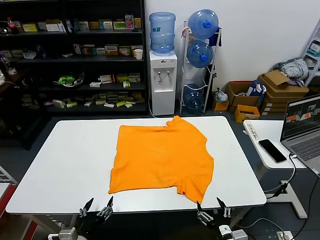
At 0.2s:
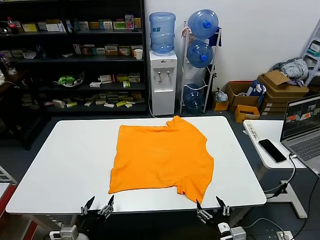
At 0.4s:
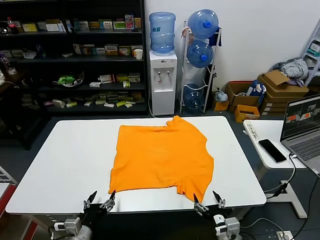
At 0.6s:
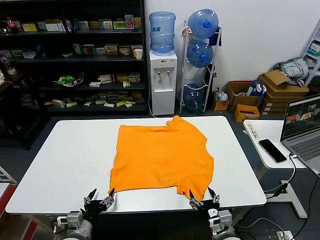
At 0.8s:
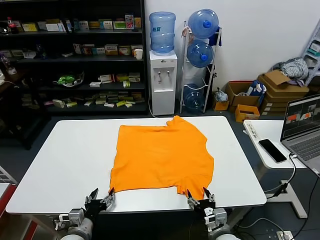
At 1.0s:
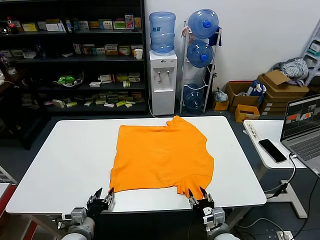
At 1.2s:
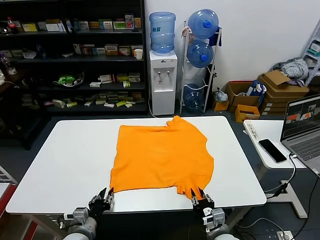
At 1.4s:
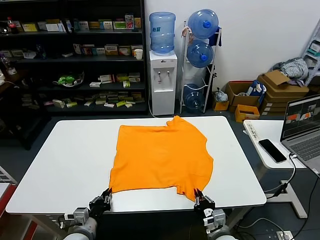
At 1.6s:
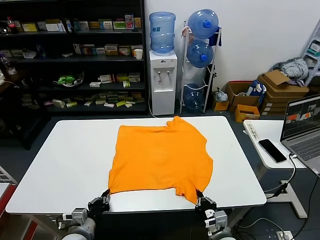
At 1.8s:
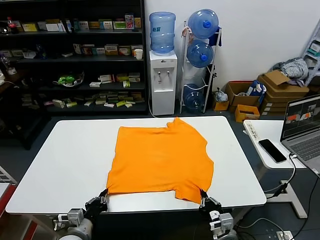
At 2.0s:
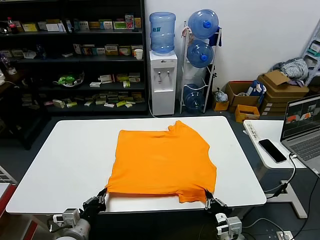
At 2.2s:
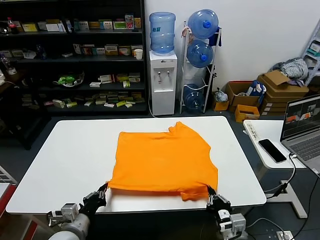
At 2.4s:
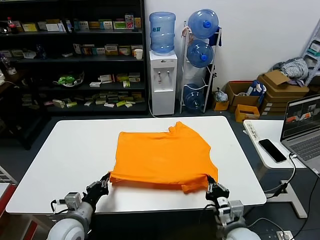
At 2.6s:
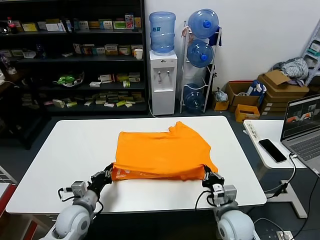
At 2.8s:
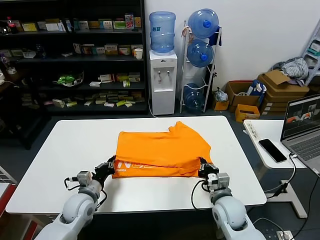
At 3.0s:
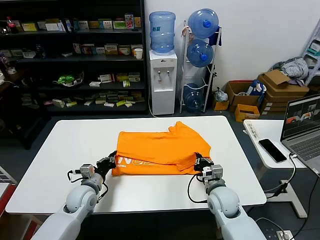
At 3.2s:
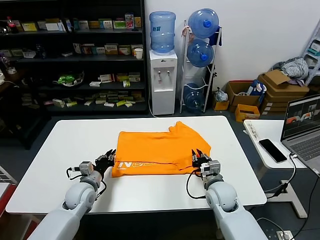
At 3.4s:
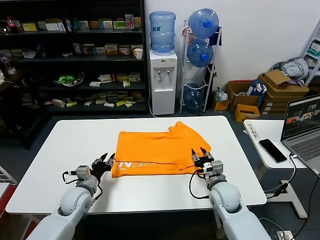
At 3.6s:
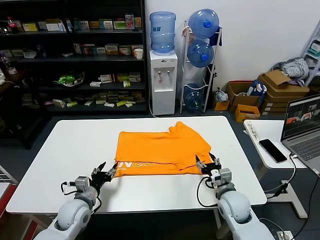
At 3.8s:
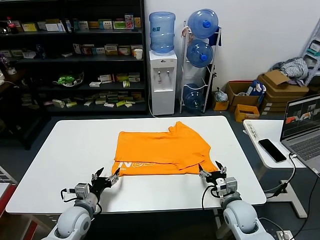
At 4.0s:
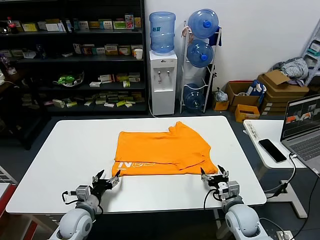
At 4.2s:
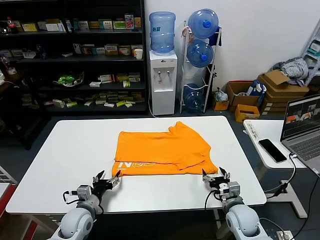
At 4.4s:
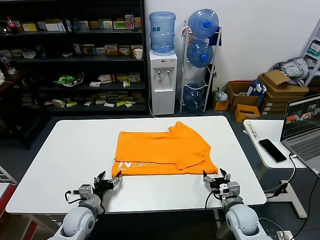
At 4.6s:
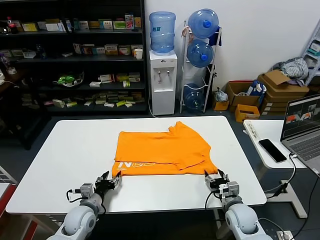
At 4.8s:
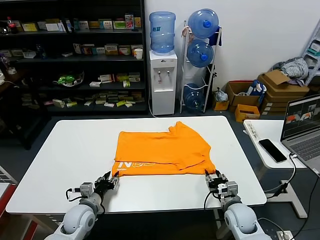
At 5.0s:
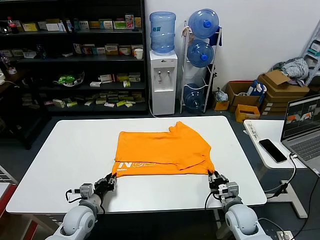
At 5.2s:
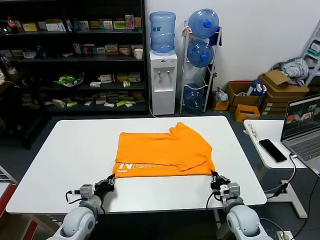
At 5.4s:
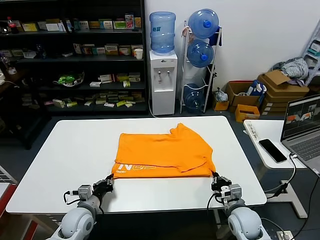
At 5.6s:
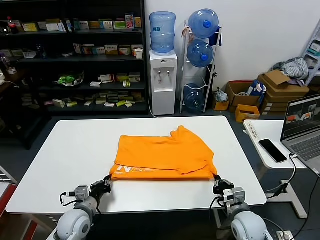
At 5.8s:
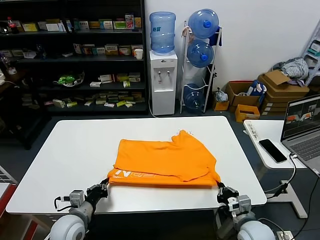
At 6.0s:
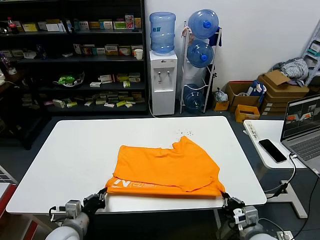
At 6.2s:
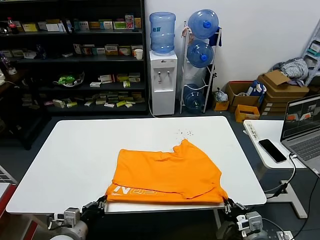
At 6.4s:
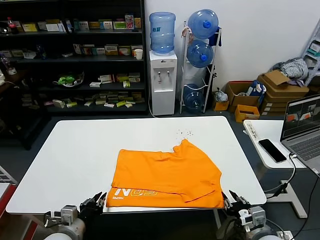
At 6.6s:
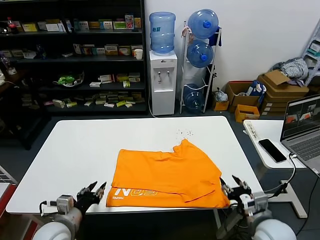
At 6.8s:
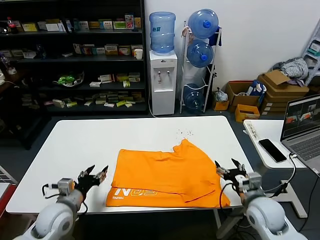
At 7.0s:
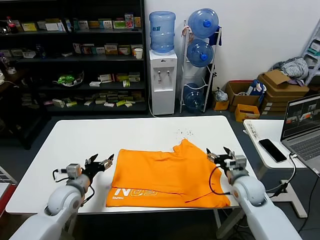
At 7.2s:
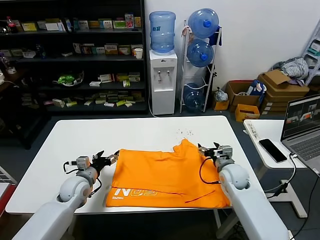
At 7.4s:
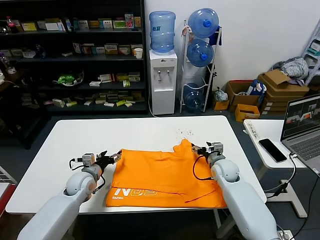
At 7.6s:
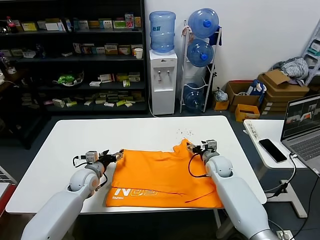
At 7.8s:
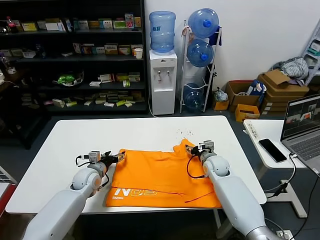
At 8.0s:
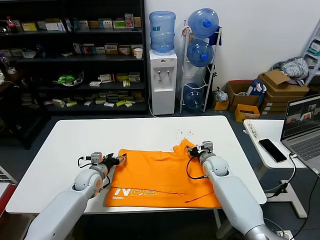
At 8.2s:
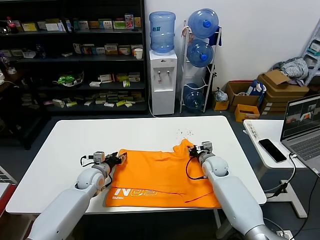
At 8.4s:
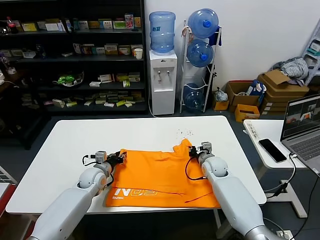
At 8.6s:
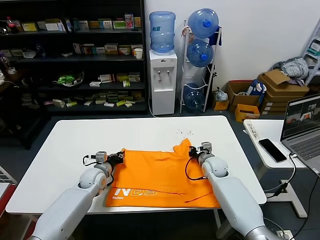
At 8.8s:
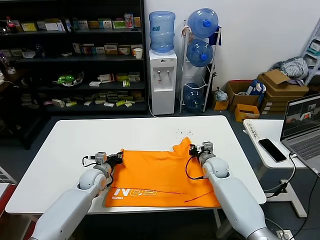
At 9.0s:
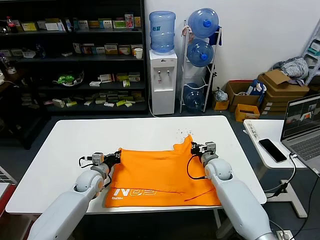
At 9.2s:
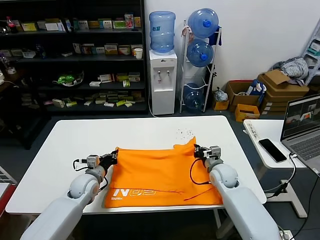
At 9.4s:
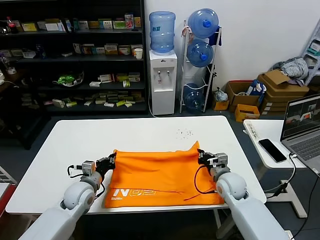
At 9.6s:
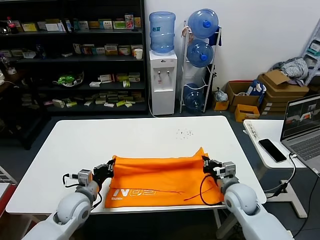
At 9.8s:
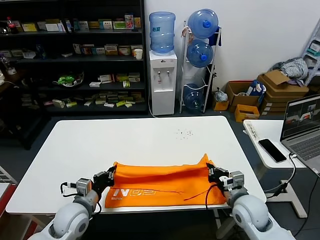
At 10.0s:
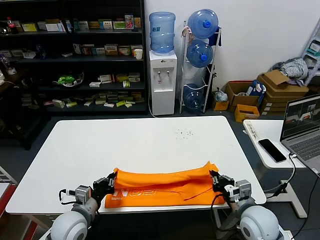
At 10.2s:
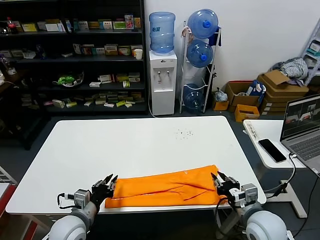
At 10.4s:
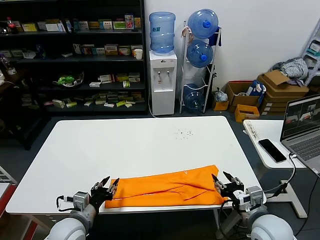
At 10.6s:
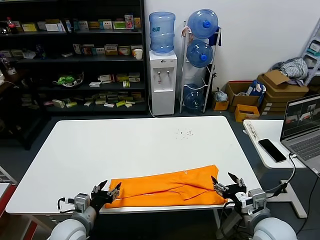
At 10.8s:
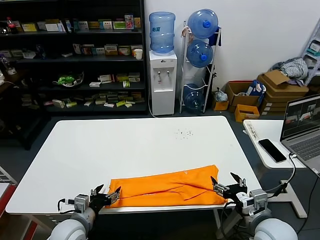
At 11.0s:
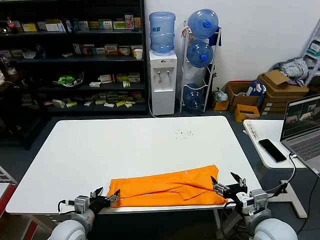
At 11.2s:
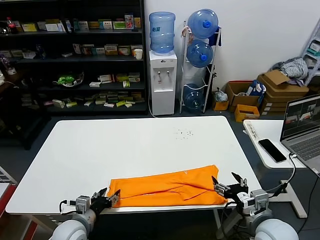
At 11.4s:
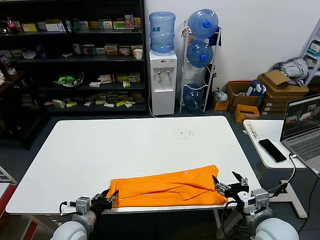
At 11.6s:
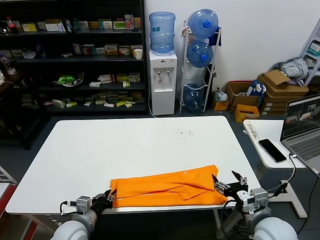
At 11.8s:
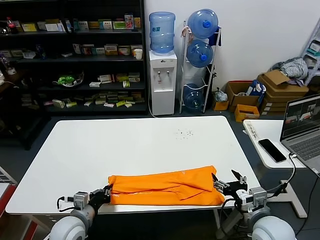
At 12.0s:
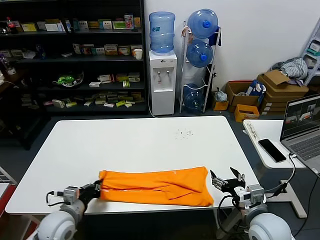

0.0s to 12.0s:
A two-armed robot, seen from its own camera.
Task of the whole recording: fold and organize the clothes.
Step, 0.0s to 1.6s: use both grippers simultaneously to clamp the lower edge of the clothing fabric.
Step, 1.8s to 3.2s: use both grippers to drag the lower edge of the fabric forward and fold it over the upper edge.
Step, 3.4s to 6.2s: Drag the clothes downward with both gripper.
Step, 6.6s to 8.6s: use both grippers simultaneously to clamp the upper edge of the clothing fabric.
Step, 8.8s to 10.2s: use both grippers to drag the upper edge of the fabric backward and fold it over the lower edge.
Step, 10.4s to 11.6s: use the left gripper to clamp the left edge of the fabric.
1.6s to 3.0s: Both grippers move forward, about 15 cm.
3.0s to 4.4s: The left gripper heads backward, covering approximately 5 cm, and opens up; the right gripper shifts approximately 10 cm to the right and downward, and opens.
4.4s to 6.0s: The two grippers go about 10 cm backward and upward. The left gripper closes. The right gripper closes.
6.0s to 7.6s: Both grippers travel together forward, about 25 cm. The right gripper opens its fingers; the left gripper opens.
7.6s to 9.0s: The right gripper closes. The left gripper closes up.
9.0s to 10.4s: The grippers both shift backward by roughly 20 cm. The right gripper opens; the left gripper opens.
10.4s to 12.0s: The right gripper opens; the left gripper closes.

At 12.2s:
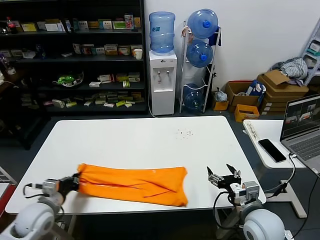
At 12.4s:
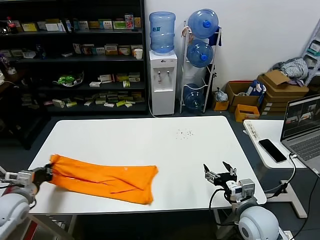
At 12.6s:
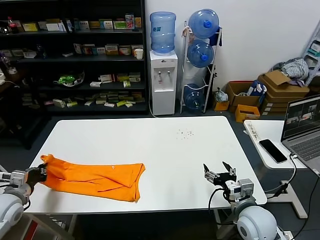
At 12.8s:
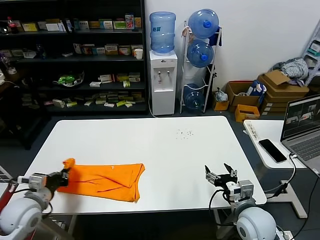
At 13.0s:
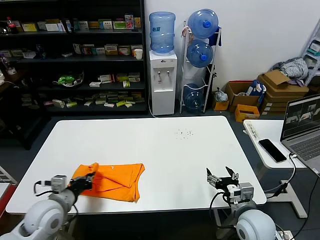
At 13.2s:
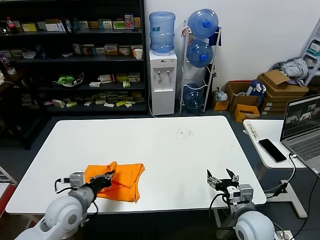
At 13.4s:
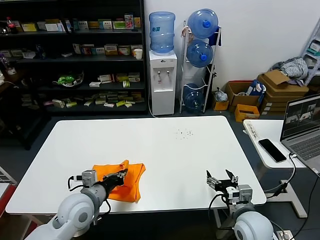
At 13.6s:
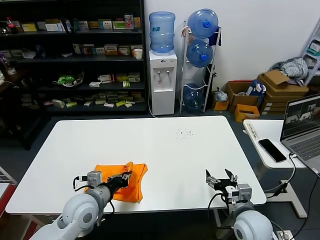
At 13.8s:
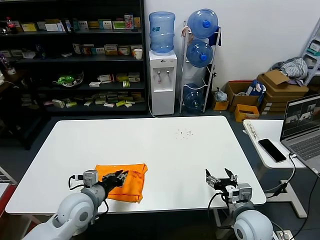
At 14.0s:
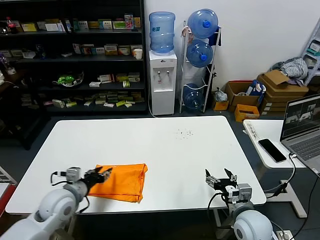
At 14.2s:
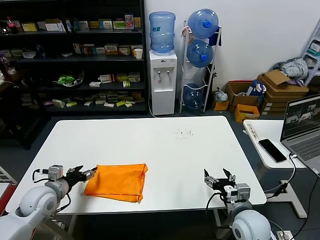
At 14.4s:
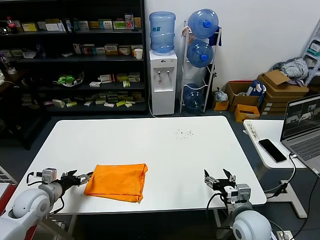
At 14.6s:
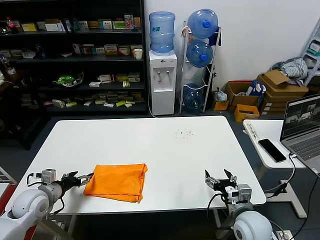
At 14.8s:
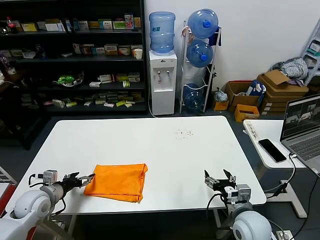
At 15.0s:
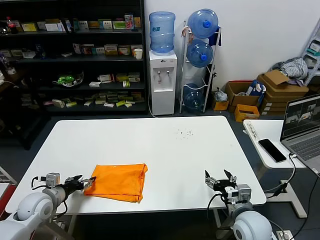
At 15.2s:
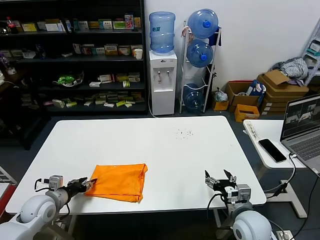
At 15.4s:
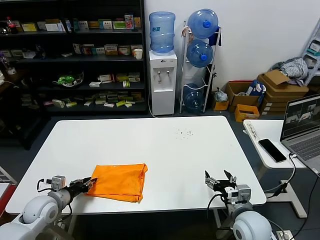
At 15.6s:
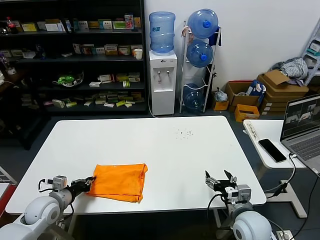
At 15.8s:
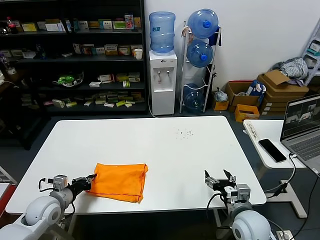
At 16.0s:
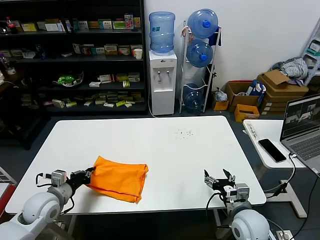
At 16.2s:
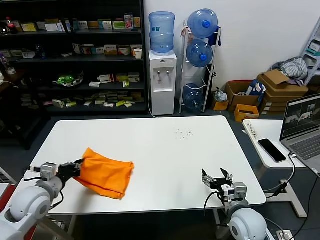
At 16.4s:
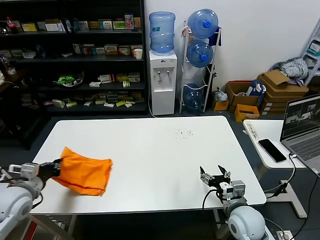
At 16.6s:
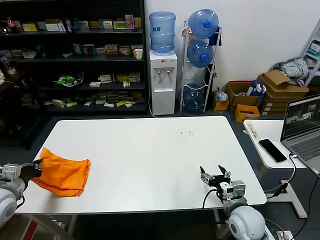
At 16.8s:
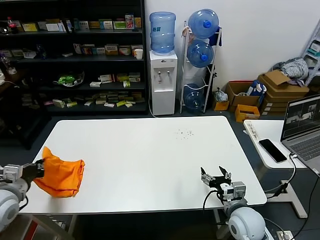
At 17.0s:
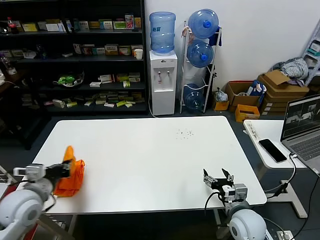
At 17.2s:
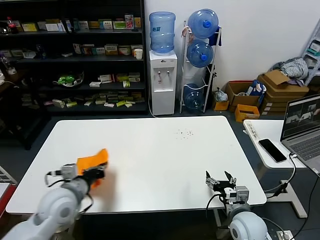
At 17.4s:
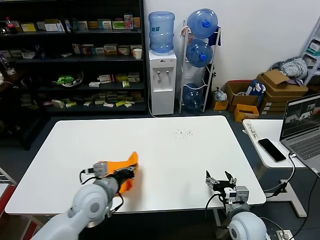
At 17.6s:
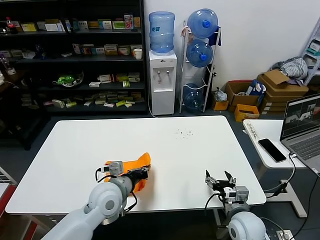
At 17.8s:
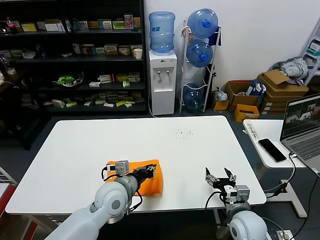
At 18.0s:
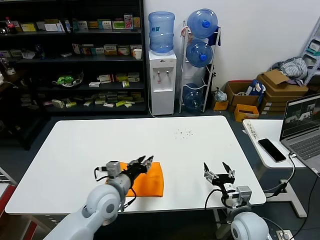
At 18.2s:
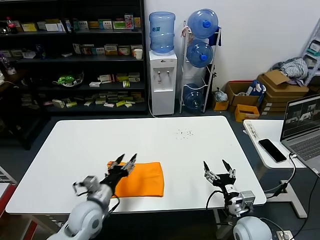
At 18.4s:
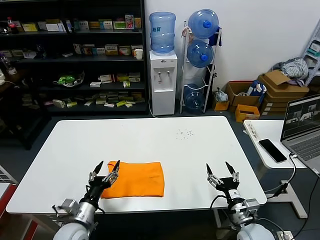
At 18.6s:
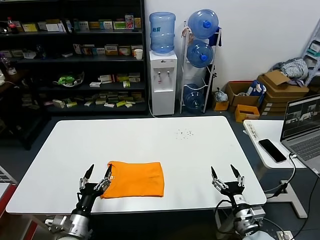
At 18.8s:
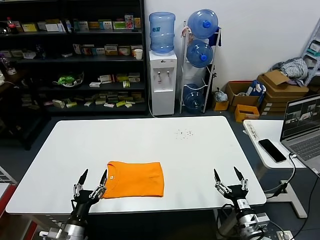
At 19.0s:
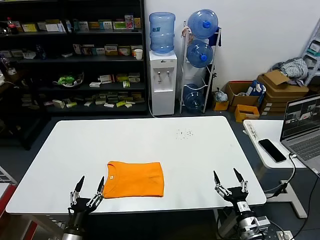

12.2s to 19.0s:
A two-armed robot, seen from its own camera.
Task of the whole recording: fold and organize the clothes.
Step, 12.2s to 13.8s: use the left gripper to drag the left edge of the fabric to the left and folds it over the right edge.
Step, 14.0s to 18.0s: Flip the folded clothes over with left gripper.
12.2s to 13.6s: The left gripper moves to the right, about 15 cm.
13.6s to 15.0s: The left gripper heads to the left, covering roughly 20 cm, and opens up.
15.0s to 16.2s: The left gripper is displaced upward by roughly 5 cm, and closes its fingers.
16.2s to 17.6s: The left gripper shifts roughly 20 cm to the right.
17.6s to 19.0s: The left gripper moves downward, backward and to the left, roughly 25 cm, and opens its fingers. Meanwhile the right gripper is displaced backward by roughly 5 cm.

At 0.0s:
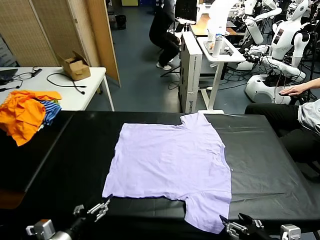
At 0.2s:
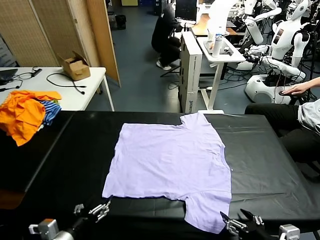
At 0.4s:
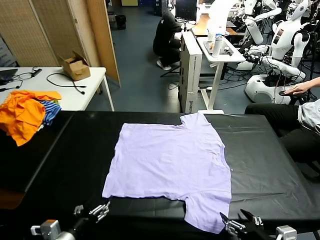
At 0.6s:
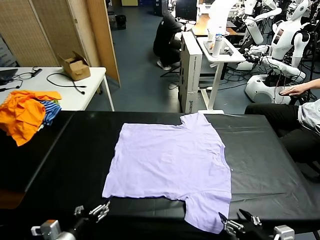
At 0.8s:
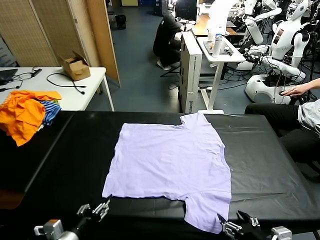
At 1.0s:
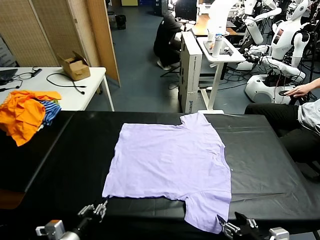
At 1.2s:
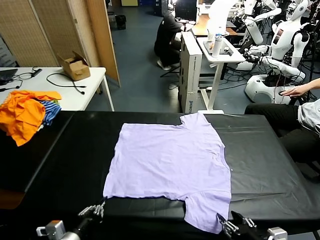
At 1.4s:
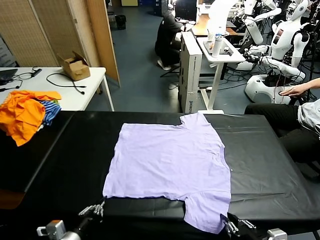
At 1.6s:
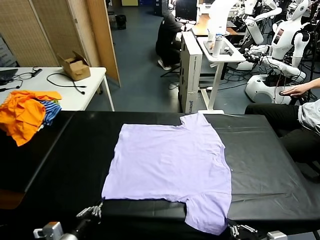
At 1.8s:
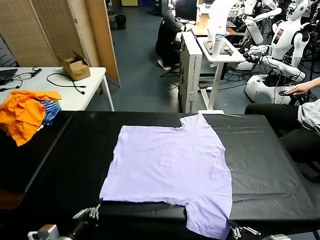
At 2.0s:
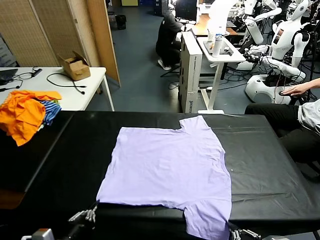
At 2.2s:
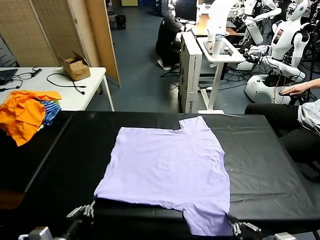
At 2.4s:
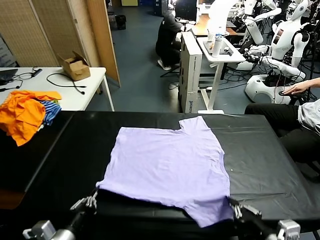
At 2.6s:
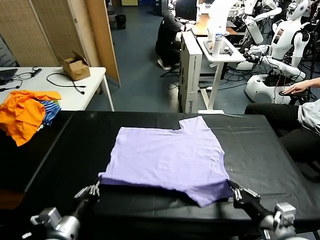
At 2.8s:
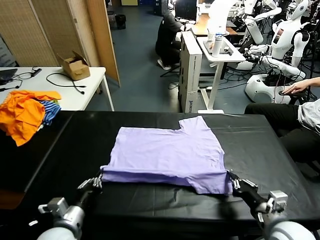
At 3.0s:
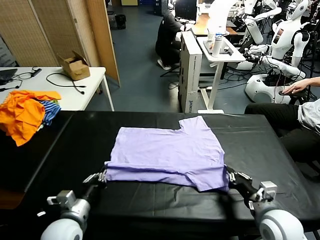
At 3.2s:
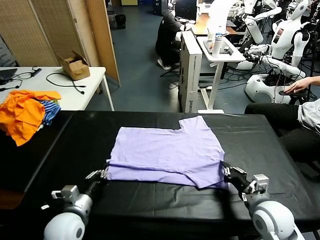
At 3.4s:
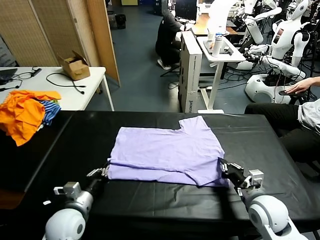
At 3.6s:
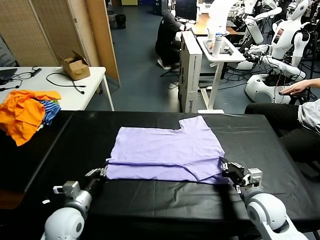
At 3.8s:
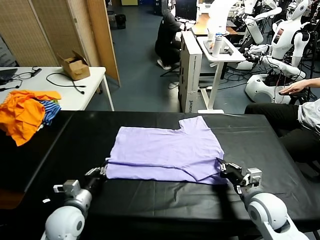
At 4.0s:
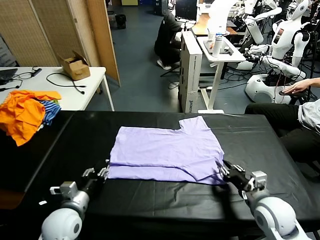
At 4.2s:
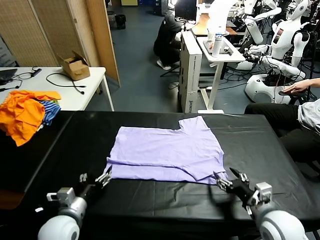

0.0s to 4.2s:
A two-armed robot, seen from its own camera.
Task of the whole recording: fold and organize the clothes.
Step, 0.0s to 1.6s: use both grippers simultaneously to clamp the lower edge of the clothing fabric.
Step, 1.8s to 4.0s: use both grippers to drag the lower edge of the fabric forward and fold it over the upper edge.
1.4s to 2.8s: The left gripper travels forward by some 10 cm. The right gripper heads forward, covering roughly 15 cm.
2.8s to 4.2s: The right gripper goes approximately 5 cm backward, and opens its fingers. The left gripper opens its fingers.
